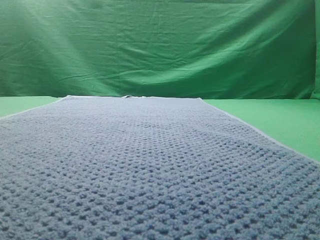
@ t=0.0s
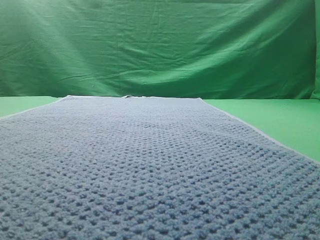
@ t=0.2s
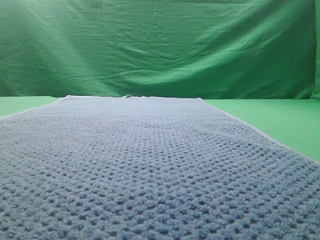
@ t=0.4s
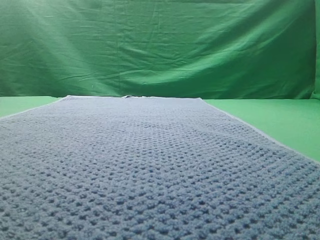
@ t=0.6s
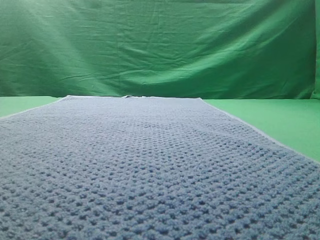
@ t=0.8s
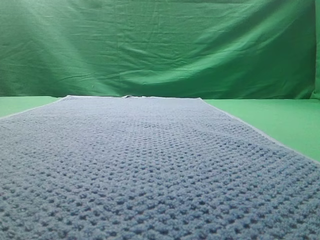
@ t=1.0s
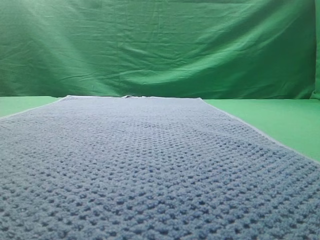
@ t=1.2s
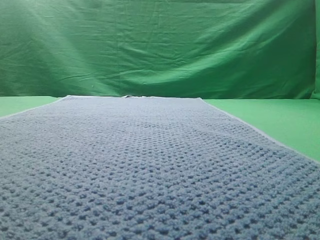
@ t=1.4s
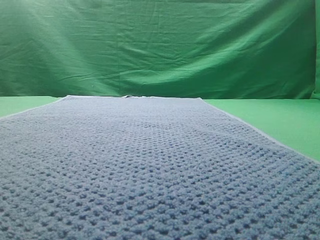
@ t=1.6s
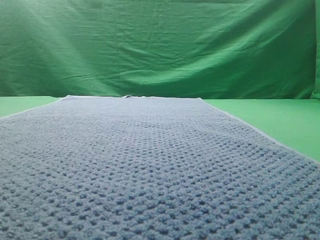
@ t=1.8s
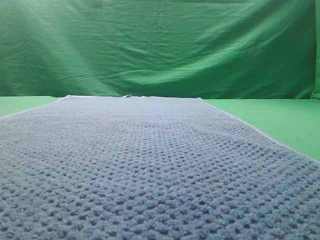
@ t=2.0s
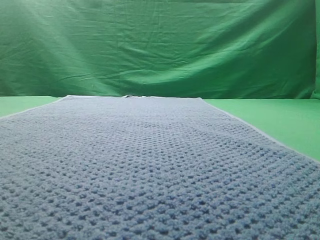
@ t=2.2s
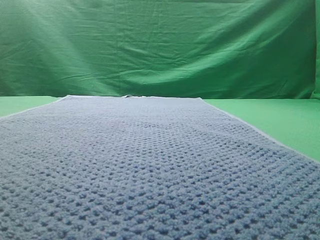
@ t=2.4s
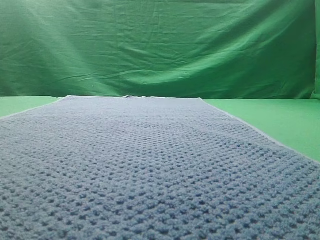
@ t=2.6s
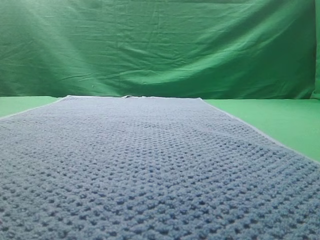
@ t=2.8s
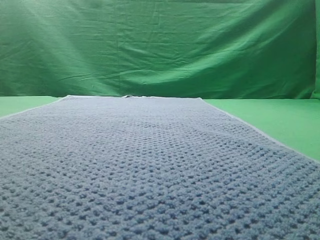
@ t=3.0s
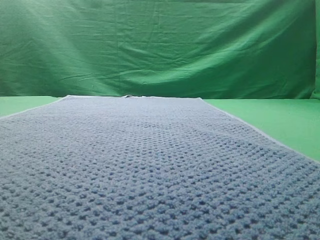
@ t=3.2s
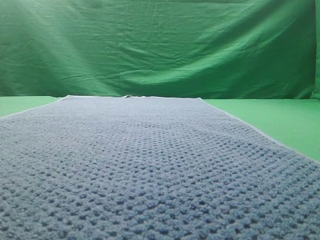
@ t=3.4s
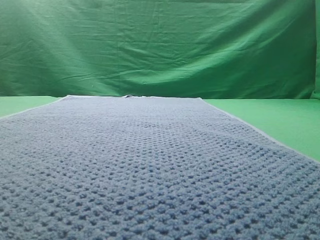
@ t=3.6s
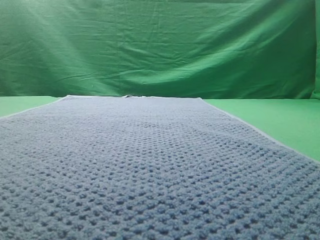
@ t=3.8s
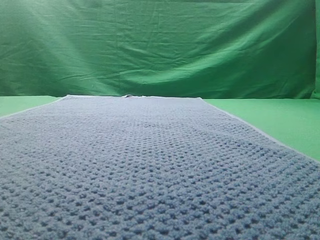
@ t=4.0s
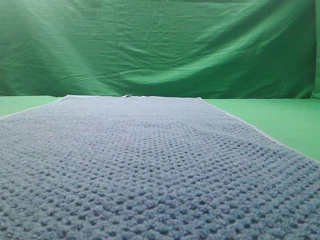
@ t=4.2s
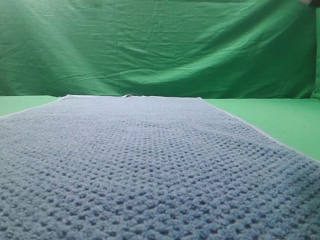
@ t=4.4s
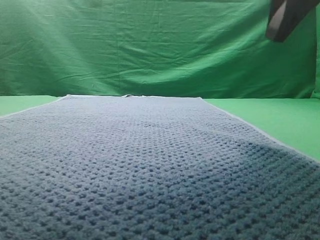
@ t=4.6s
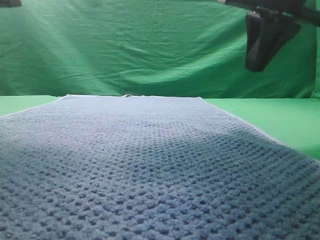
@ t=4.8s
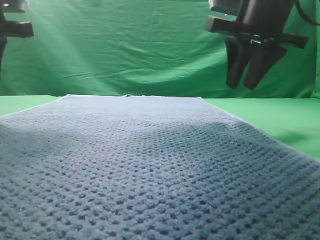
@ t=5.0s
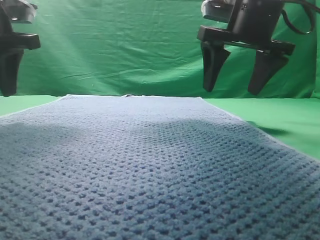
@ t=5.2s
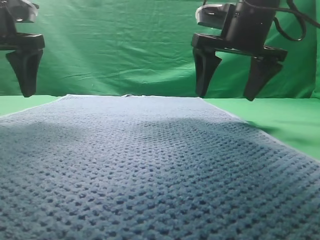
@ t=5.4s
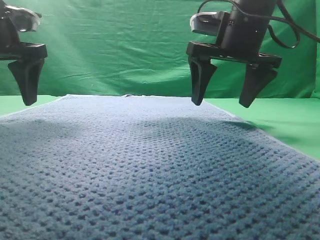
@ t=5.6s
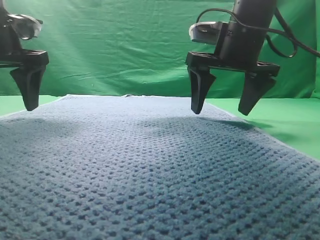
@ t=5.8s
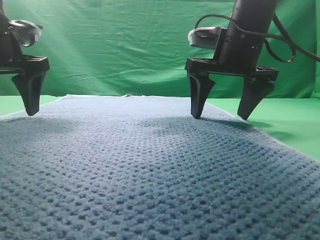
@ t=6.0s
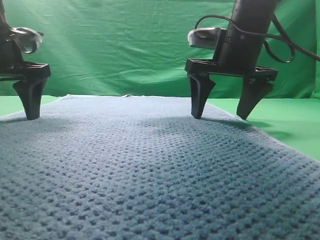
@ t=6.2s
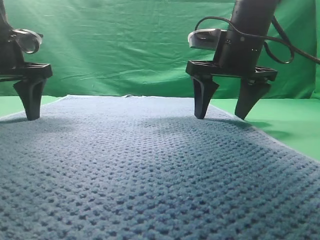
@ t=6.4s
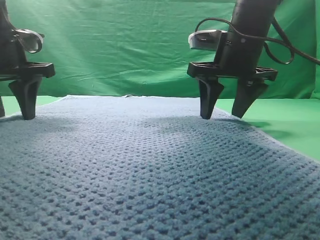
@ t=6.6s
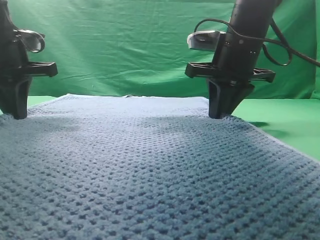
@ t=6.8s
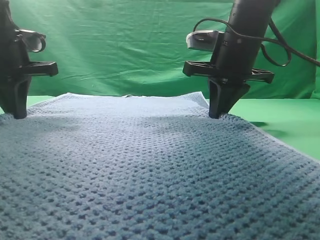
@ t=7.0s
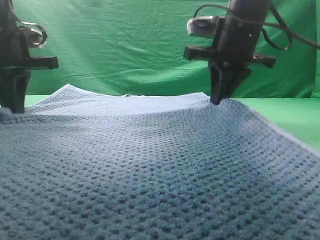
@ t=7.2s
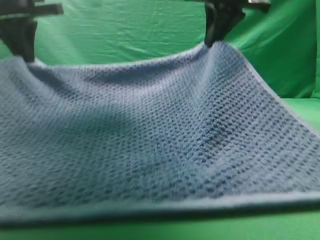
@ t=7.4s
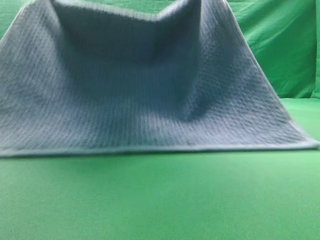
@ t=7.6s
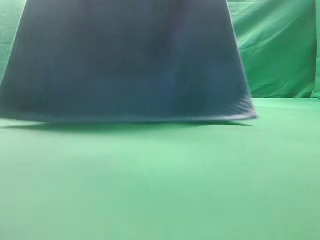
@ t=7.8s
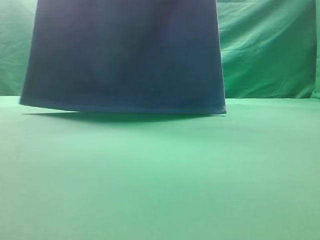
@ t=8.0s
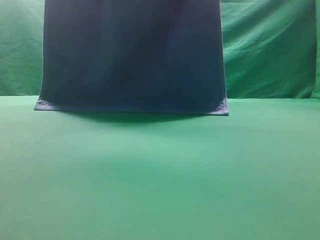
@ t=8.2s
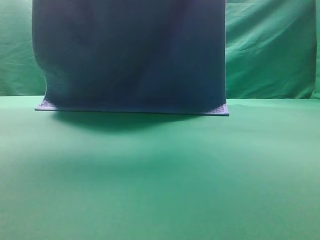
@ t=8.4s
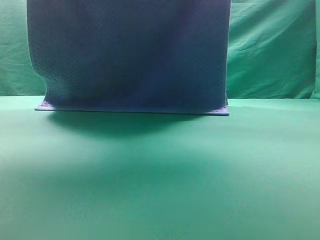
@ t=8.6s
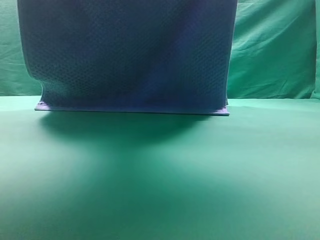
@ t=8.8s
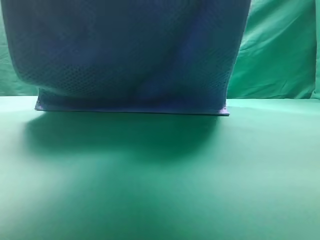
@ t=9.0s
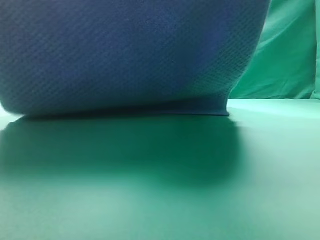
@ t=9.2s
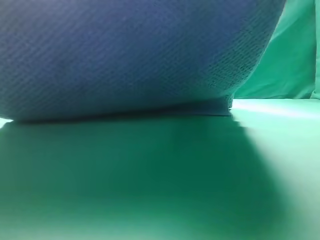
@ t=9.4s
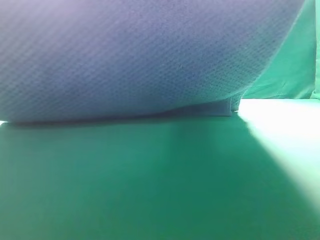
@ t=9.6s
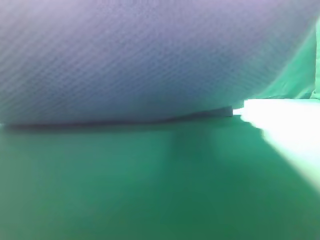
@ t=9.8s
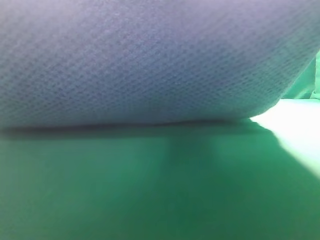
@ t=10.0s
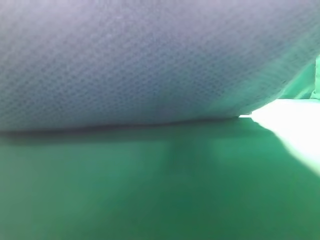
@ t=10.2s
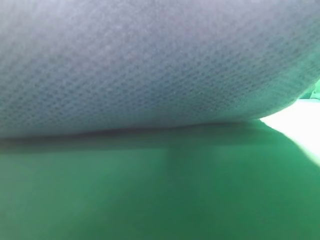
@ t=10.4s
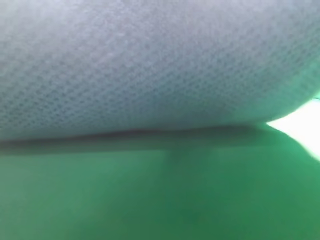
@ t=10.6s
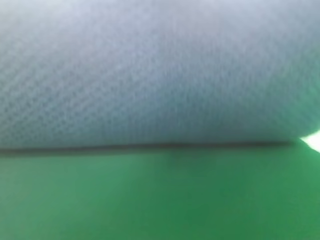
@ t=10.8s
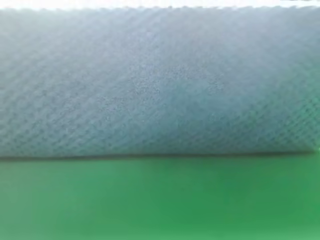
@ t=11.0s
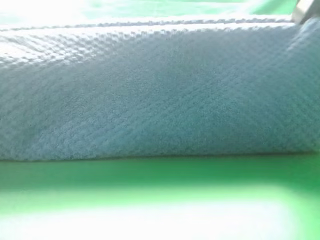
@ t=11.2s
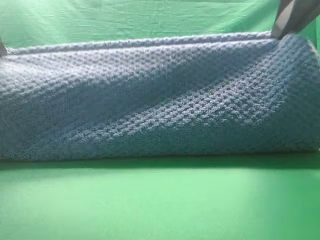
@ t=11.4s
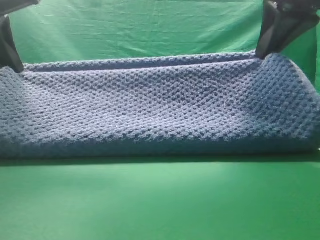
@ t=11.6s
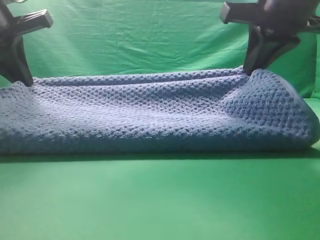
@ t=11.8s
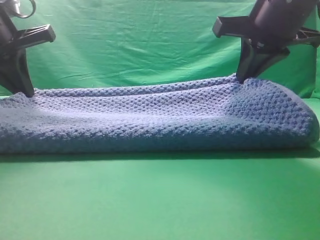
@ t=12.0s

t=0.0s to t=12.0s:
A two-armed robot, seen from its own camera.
Task of the whole recording: fold the towel on the table twice.
Step, t=0.0s to t=7.8s: pick up the towel with two arm.
